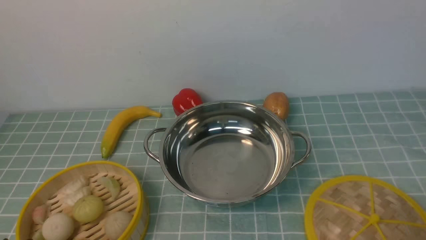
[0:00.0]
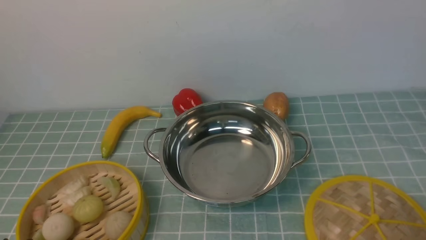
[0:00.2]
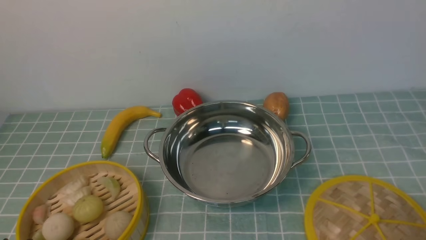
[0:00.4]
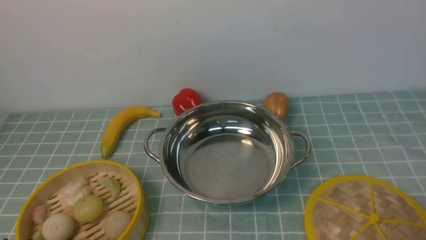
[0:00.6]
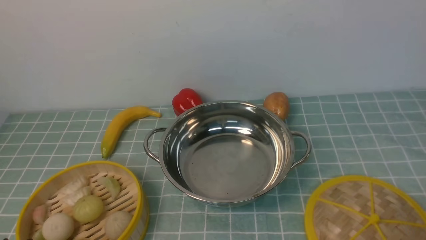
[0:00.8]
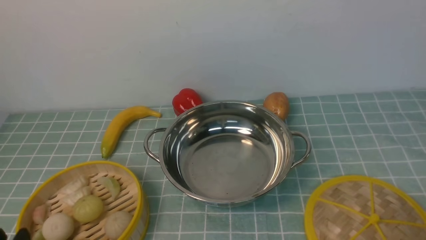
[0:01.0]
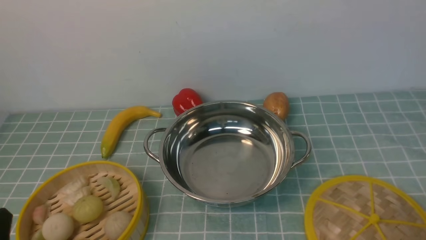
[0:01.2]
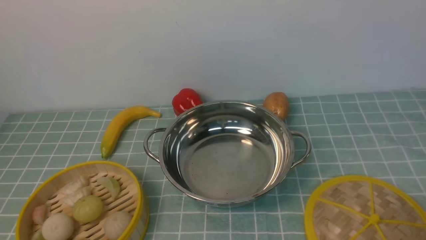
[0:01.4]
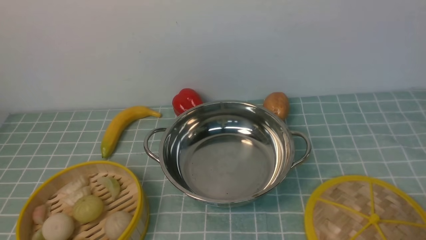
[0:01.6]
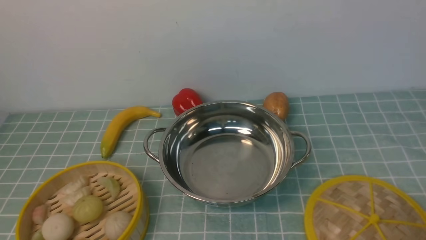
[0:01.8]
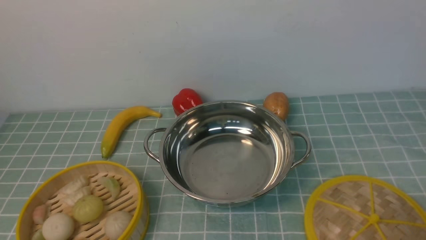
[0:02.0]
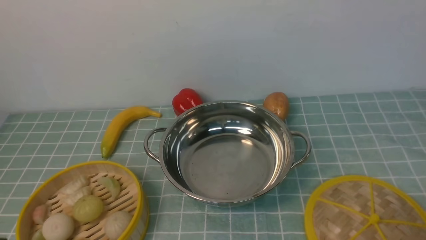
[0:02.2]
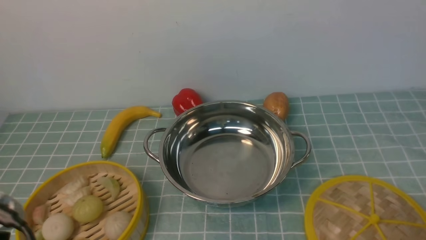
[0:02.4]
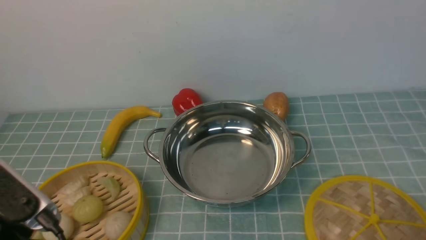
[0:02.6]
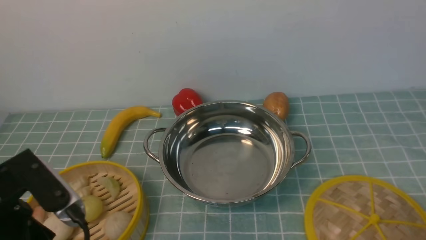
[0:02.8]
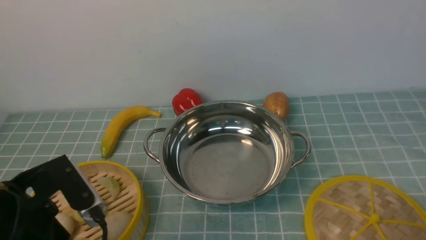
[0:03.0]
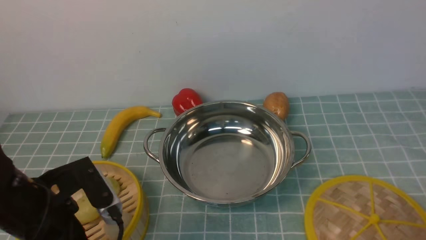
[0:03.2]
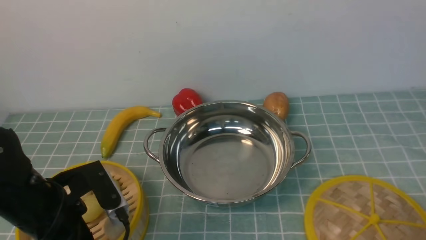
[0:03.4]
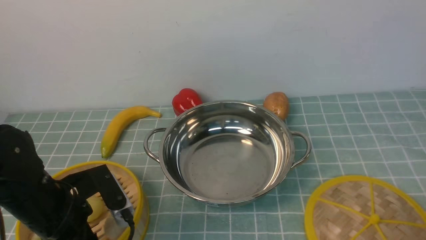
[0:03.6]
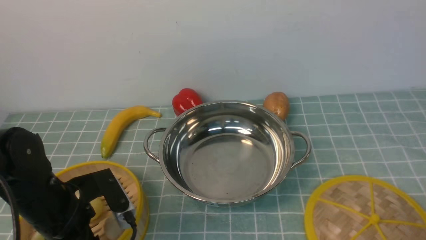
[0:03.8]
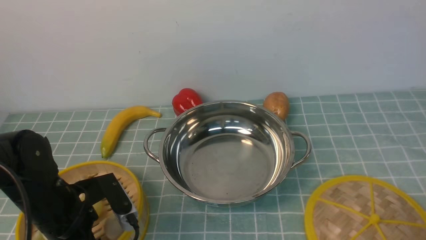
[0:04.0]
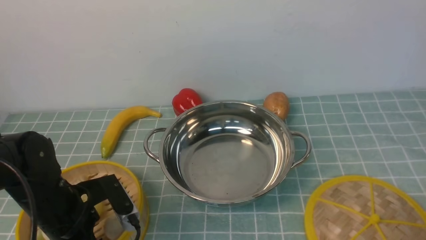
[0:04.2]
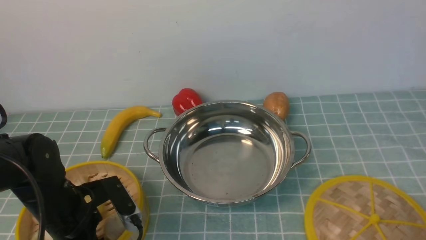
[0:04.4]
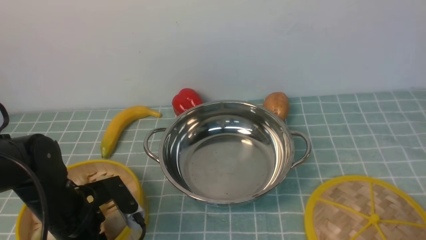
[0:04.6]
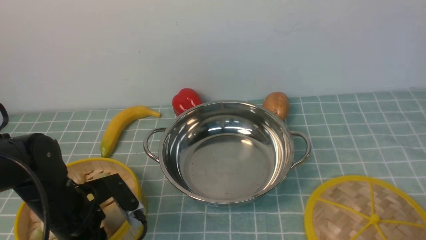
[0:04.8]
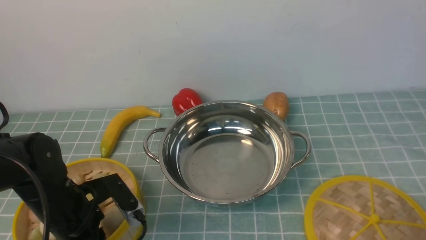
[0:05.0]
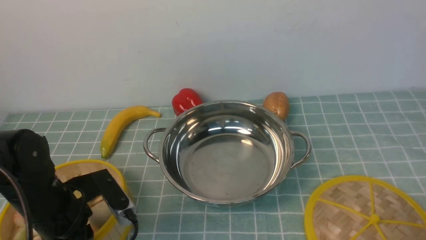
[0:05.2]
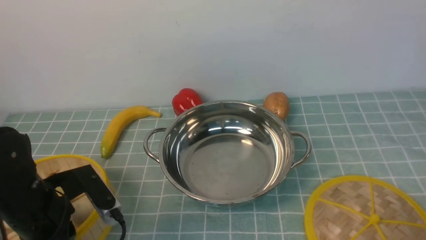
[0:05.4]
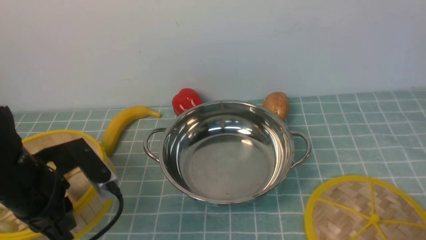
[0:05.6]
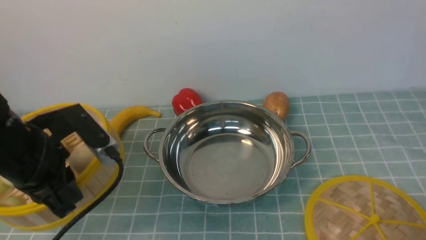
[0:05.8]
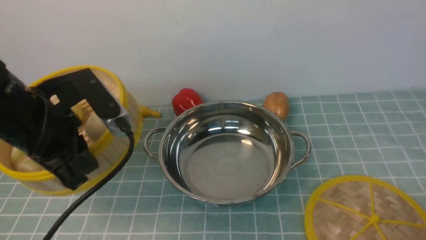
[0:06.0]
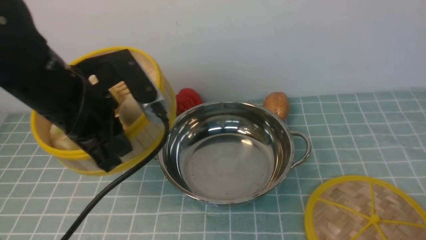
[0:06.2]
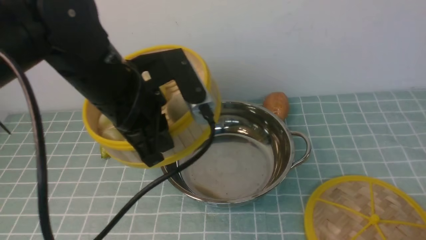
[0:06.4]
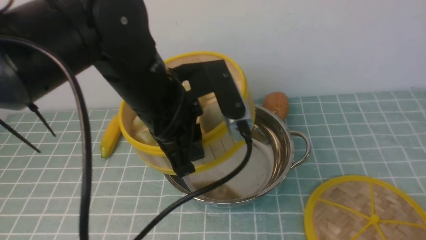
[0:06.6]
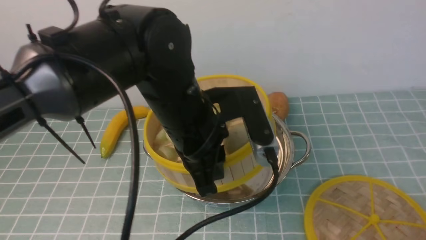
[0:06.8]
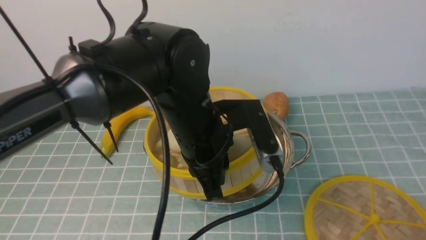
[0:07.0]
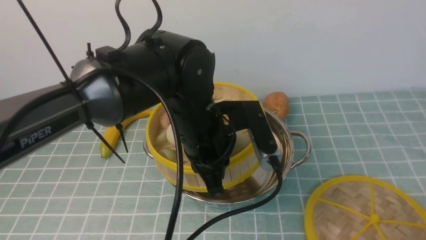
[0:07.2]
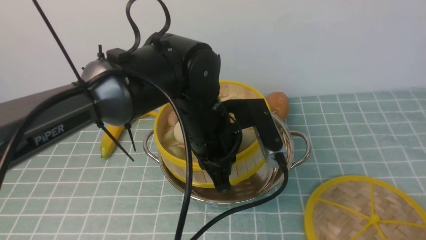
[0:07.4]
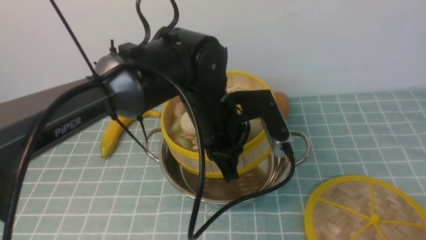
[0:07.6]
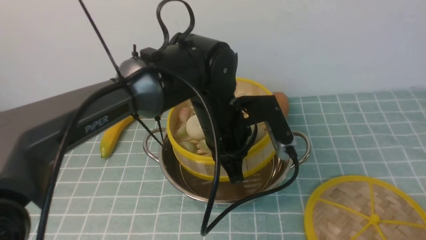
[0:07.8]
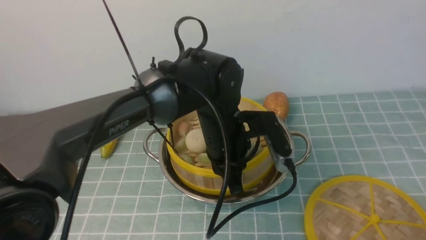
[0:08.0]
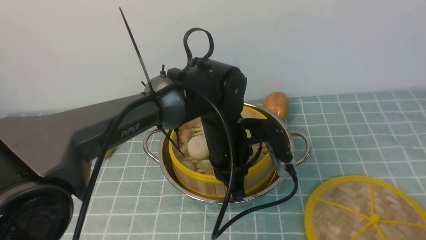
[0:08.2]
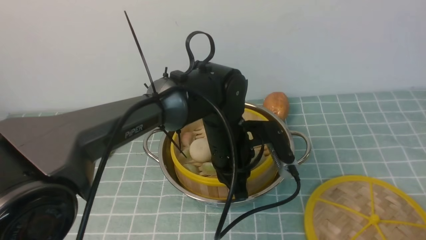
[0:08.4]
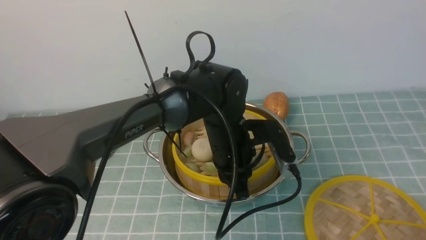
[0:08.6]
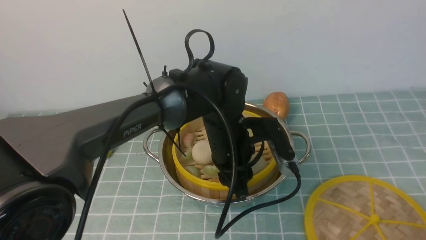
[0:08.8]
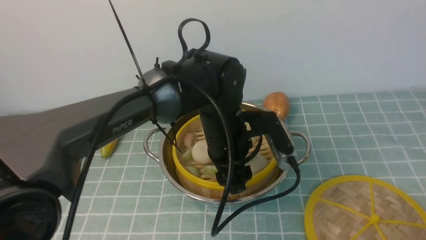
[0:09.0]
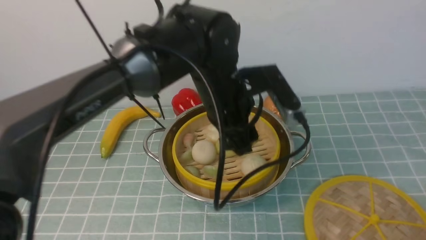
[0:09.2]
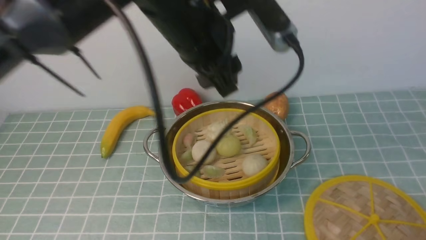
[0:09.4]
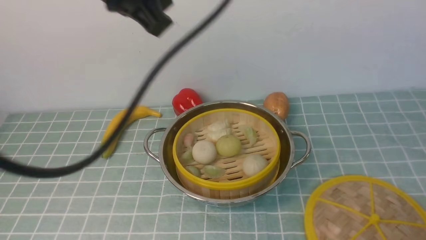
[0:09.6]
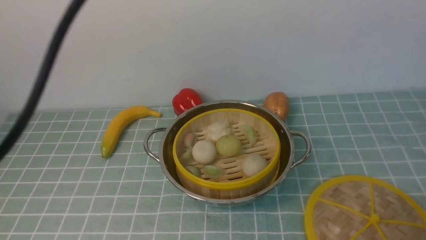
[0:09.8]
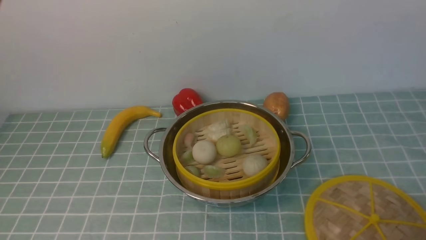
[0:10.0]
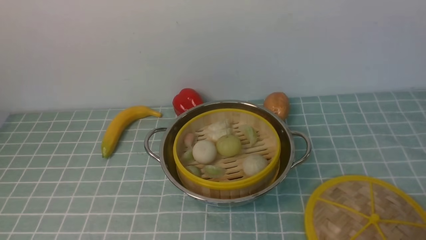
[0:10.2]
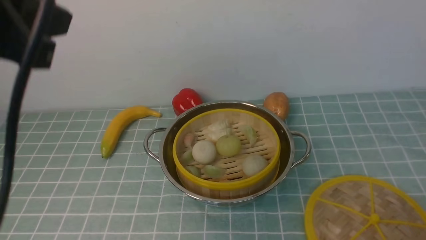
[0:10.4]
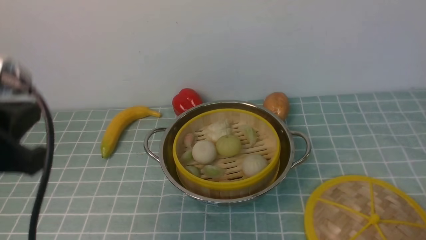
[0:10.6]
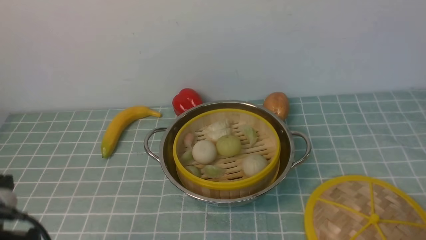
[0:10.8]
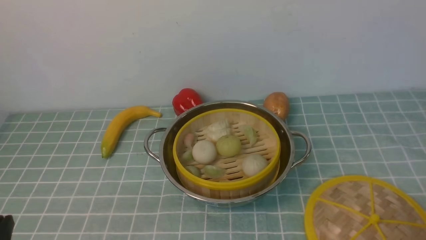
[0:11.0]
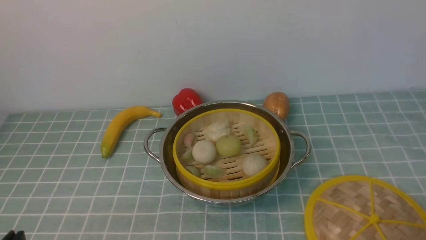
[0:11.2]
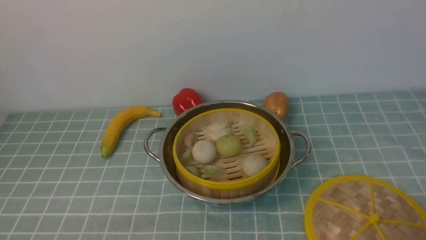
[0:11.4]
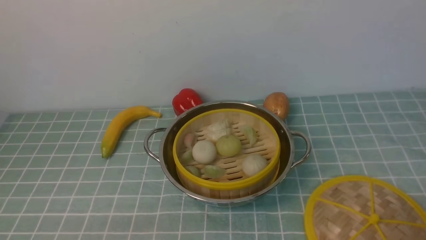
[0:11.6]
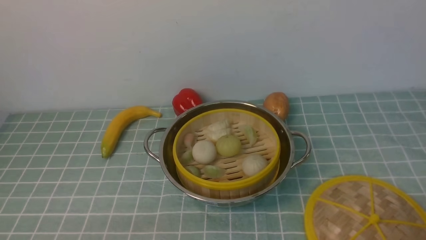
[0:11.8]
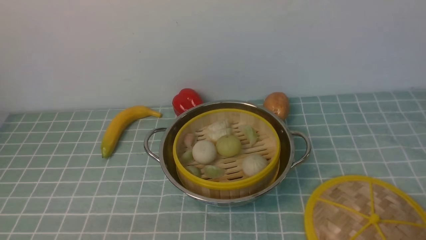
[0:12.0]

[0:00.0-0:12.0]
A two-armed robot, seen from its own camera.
Task of the whole recording: place the steamer in the pot on the blue tablecloth, and put the lid on the steamer.
Step, 0:00.0 to 0:05.8: use the left arm to lift the steamer closest to it.
Step, 0:06.0 to 0:09.2: use the left arm to put the steamer into the iron steamer pot in the middle.
0:01.6 to 0:03.0: The left gripper is displaced forward by approximately 10 cm.
0:03.0 to 0:04.4: The left gripper moves downward and forward, about 15 cm.
0:04.4 to 0:06.0: The left gripper moves upward, about 15 cm, and closes up.
0:06.0 to 0:07.6: The left gripper travels to the right by some 20 cm.
0:07.6 to 0:09.0: The left gripper moves about 5 cm, and opens.
0:09.0 to 0:10.4: The left gripper is displaced upward, to the left and backward by approximately 35 cm, and closes up.
0:10.4 to 0:12.0: The left gripper is displaced downward and backward by roughly 35 cm.

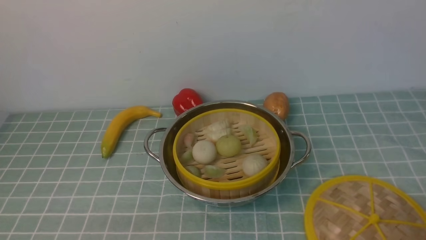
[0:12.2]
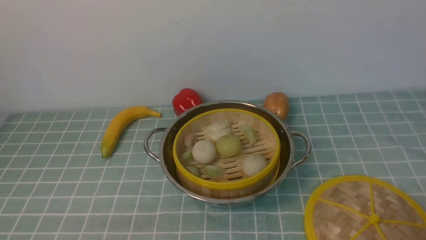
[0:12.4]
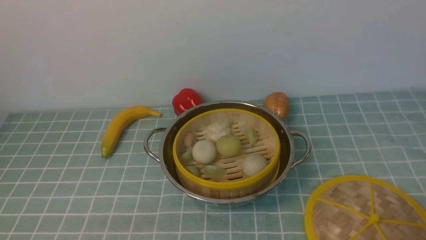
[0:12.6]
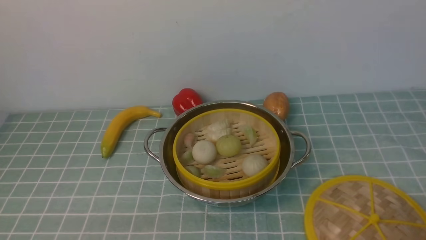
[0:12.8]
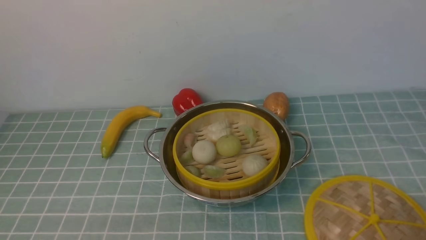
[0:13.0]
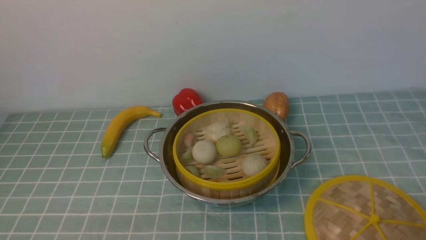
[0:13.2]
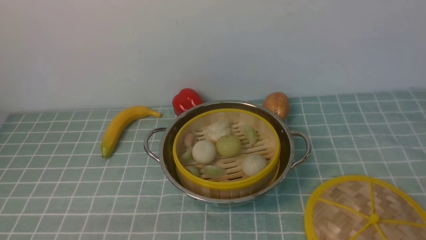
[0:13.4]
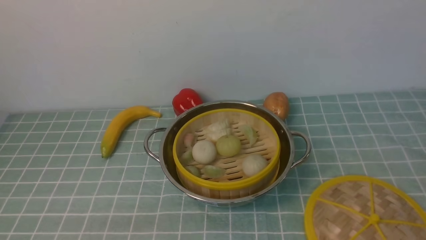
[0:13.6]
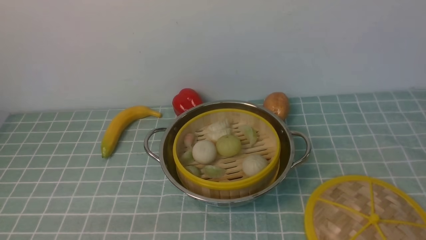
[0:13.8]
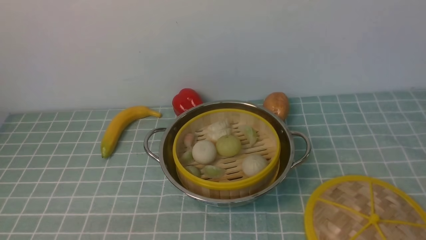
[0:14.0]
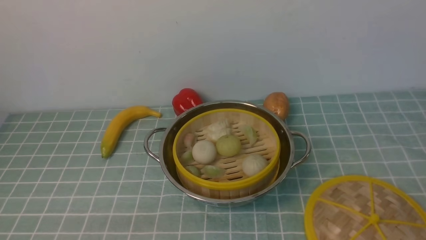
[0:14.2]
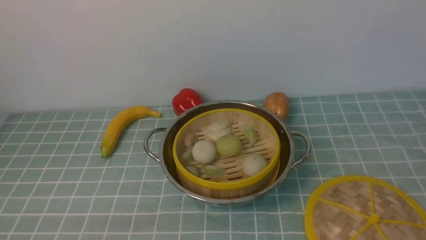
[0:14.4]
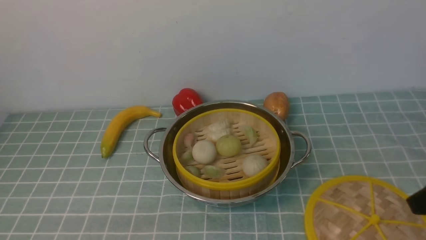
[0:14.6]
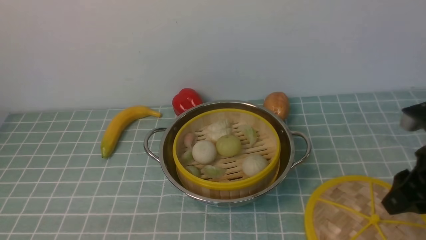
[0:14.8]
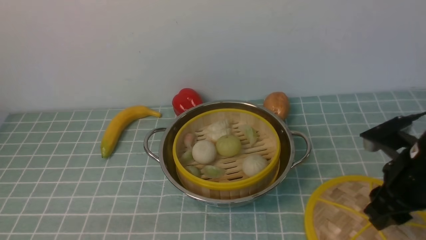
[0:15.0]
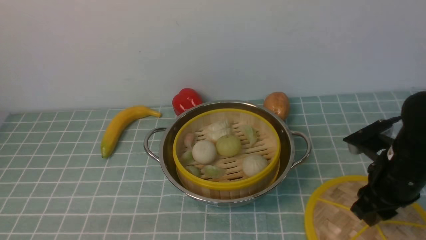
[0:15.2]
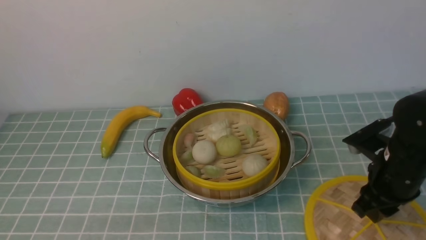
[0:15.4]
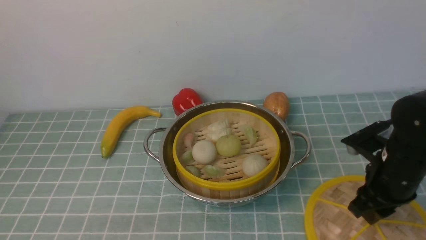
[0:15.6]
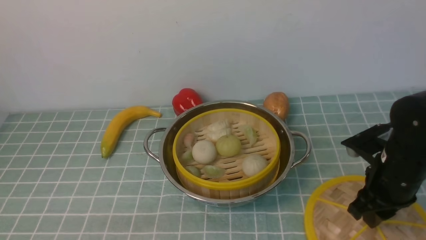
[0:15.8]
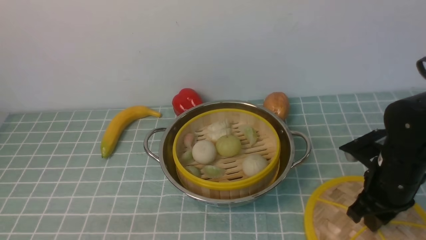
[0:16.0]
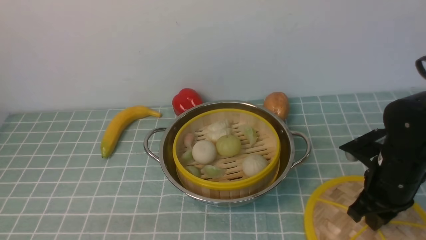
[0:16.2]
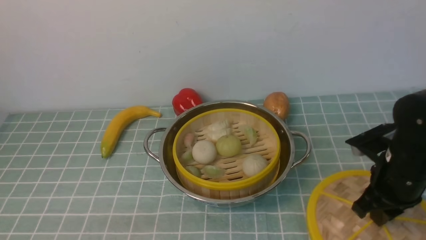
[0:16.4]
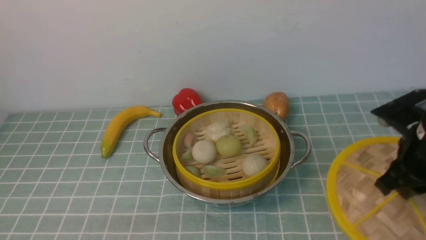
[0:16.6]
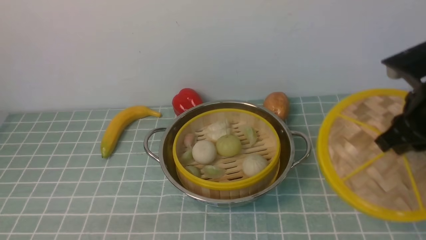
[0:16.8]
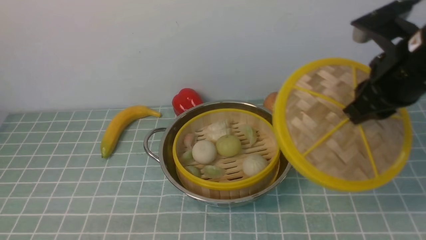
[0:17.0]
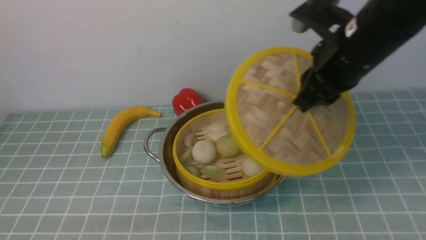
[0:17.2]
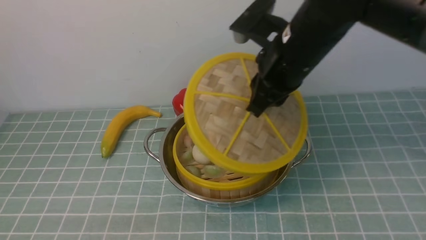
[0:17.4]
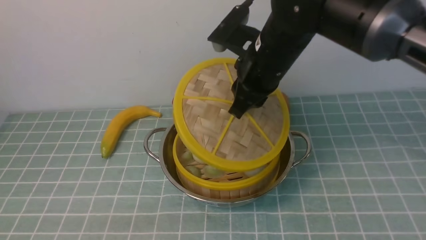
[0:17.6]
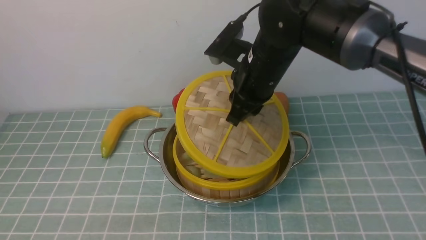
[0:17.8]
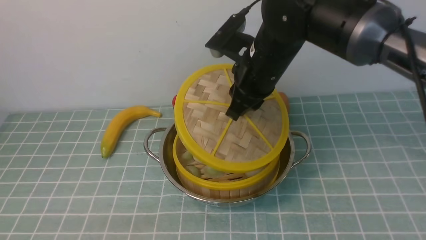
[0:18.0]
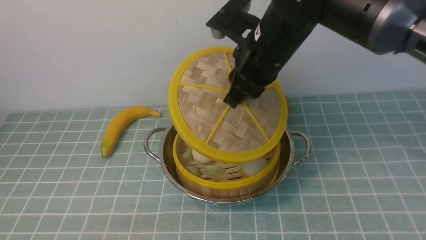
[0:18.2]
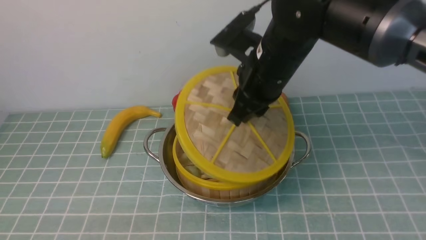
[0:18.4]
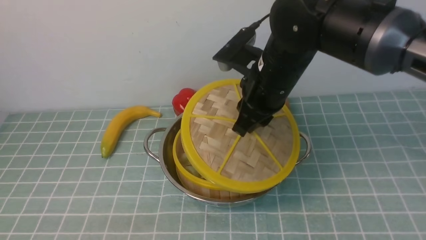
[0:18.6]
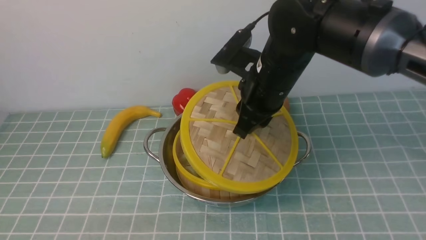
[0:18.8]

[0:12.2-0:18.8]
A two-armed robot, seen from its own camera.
Task of the whole recording: place the steamer in the pot on the blue tablecloth, and put the lid on the steamer.
Step, 0:12.2 to 0:16.6: use the right arm to lift the lid of the steamer.
0:13.8 to 0:15.4: The right gripper shifts roughly 25 cm forward and downward.
0:15.4 to 0:17.2: The right gripper goes roughly 15 cm upward and to the left, and closes up.
0:17.2 to 0:18.8: The right gripper moves to the left and downward, about 10 cm.